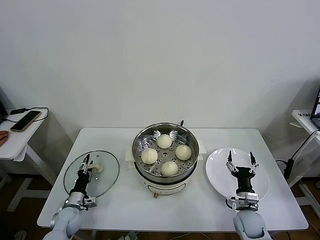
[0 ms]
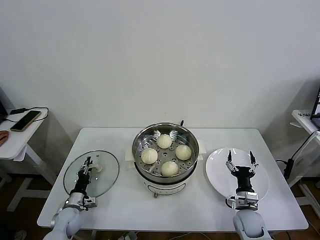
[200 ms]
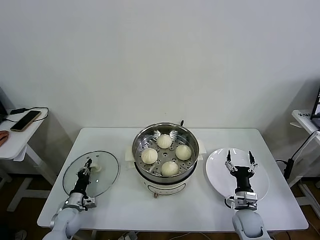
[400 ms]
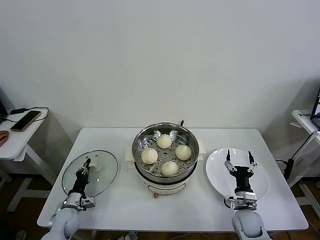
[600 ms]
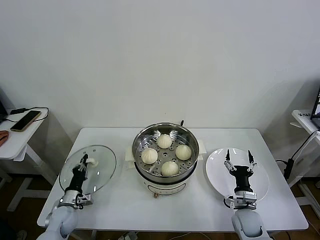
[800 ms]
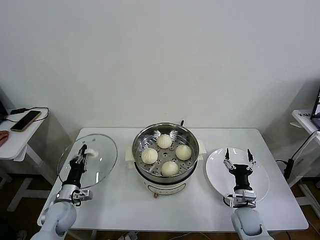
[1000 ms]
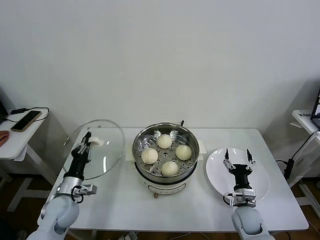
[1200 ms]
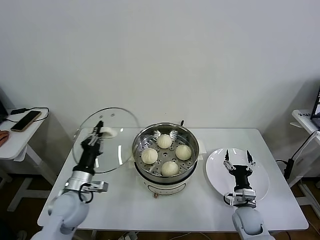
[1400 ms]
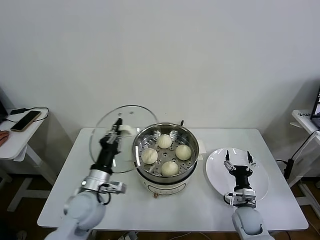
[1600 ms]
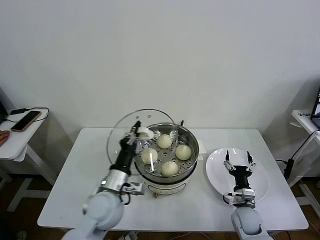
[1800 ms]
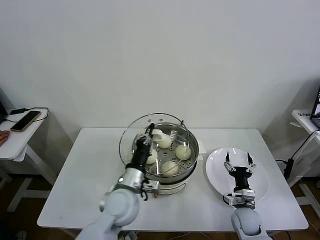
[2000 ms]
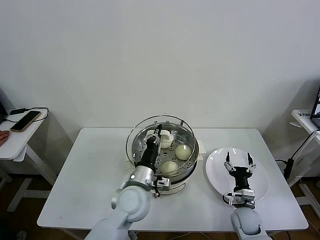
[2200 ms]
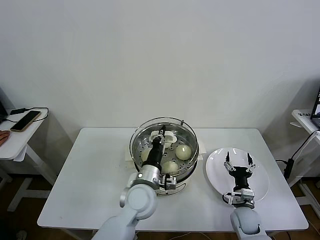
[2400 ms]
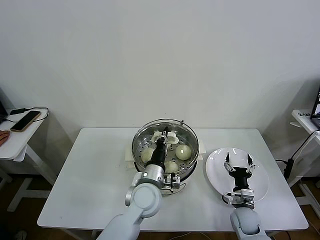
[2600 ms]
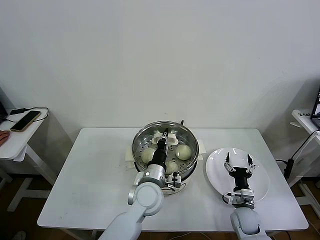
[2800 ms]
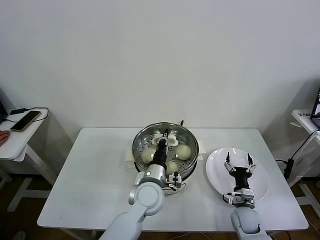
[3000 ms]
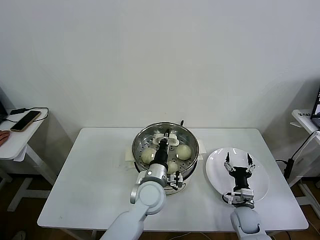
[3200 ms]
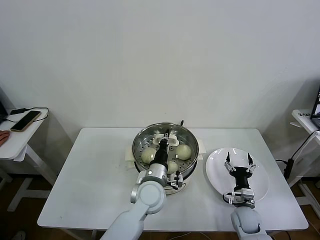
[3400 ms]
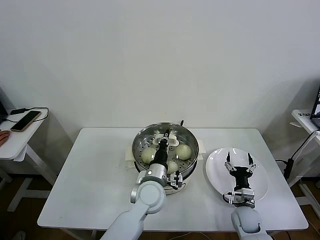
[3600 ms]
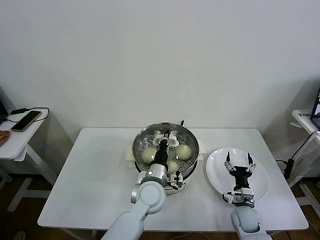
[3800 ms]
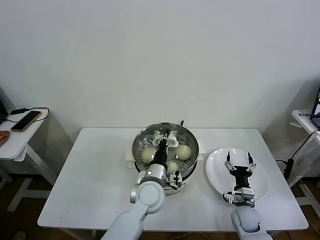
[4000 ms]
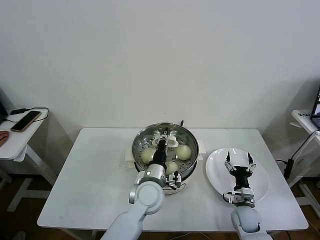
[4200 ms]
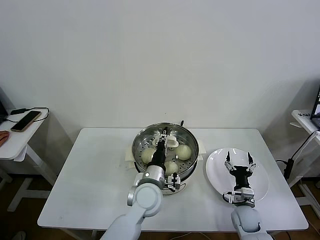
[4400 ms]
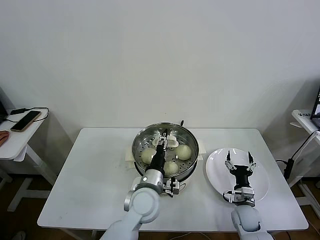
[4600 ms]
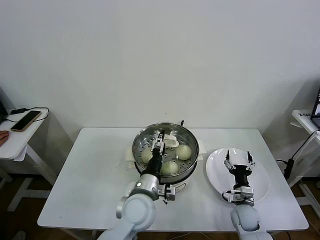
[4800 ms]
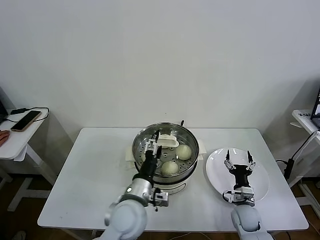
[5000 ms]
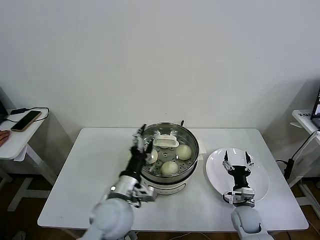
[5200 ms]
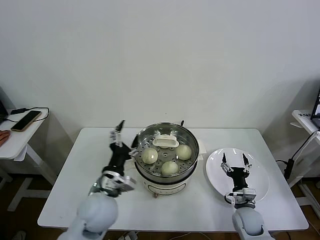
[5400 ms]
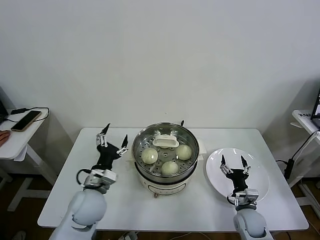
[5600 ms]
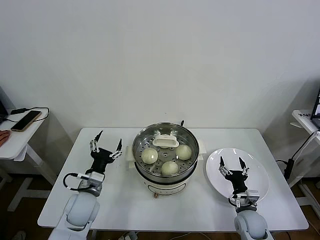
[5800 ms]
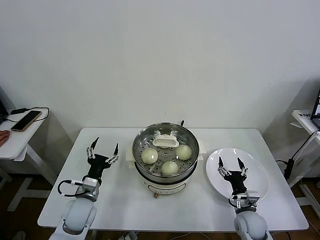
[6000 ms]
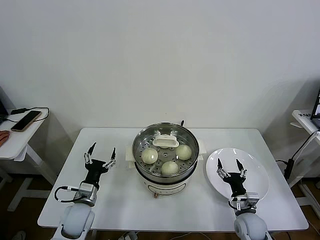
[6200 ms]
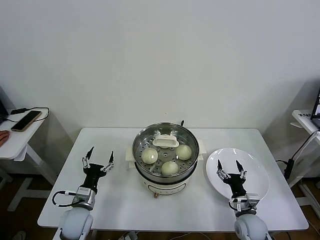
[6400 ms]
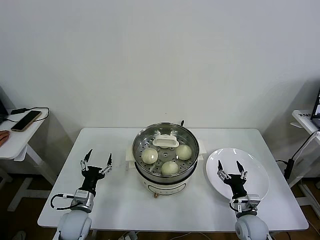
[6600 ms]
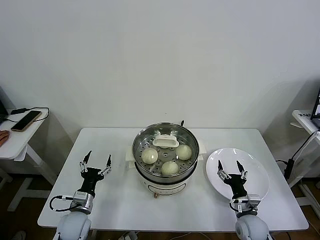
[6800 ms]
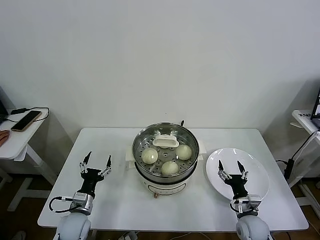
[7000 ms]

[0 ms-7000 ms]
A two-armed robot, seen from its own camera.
Task of the whole recording: take steamed baozi put them in steamer then cover it.
Step, 800 ms to 4200 ms: Place the pot lid on the steamer with left gripper.
0 ms to 1400 ms: The left gripper is displaced upward and to the right by approximately 20 cm, and closes.
1400 ms to 2800 ms: The left gripper goes some 25 cm to the right.
2800 ms to 4200 ms: The grippers move only a little.
4200 ms to 5600 ms: The left gripper heads to the left, covering about 15 cm, and opens its fingers.
5600 ms to 7000 ms: The left gripper heads downward and to the left, covering approximately 15 cm.

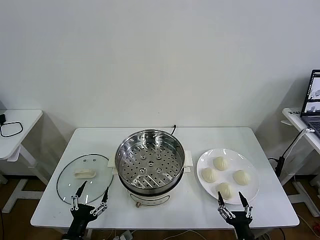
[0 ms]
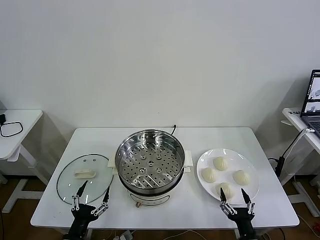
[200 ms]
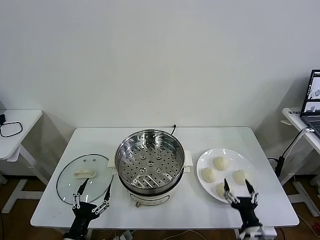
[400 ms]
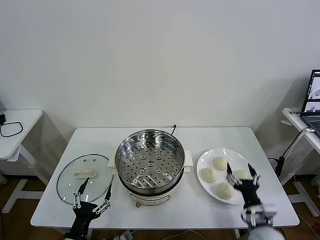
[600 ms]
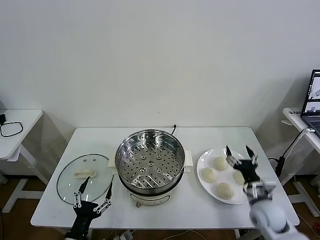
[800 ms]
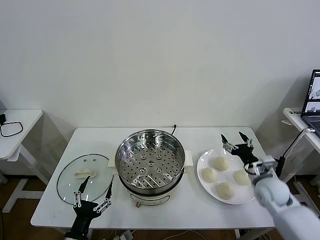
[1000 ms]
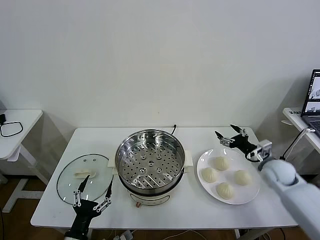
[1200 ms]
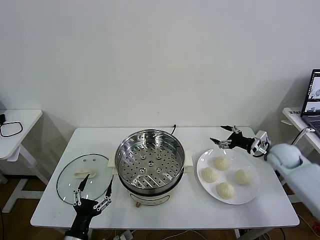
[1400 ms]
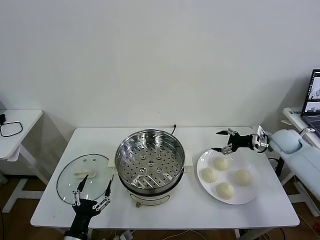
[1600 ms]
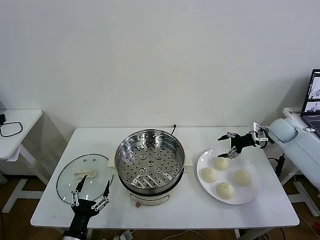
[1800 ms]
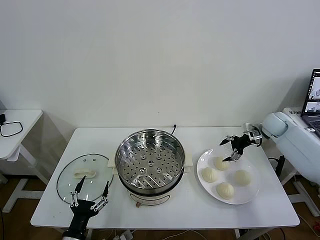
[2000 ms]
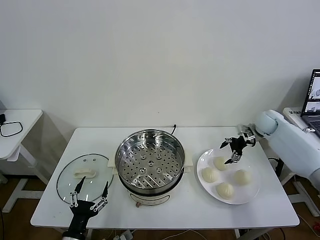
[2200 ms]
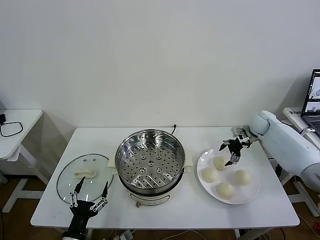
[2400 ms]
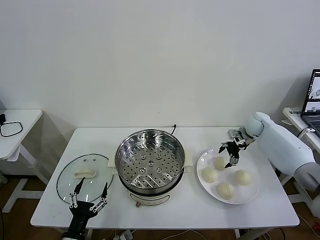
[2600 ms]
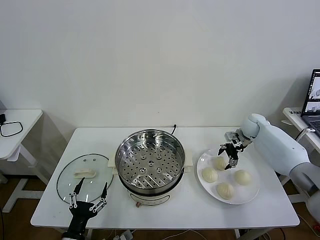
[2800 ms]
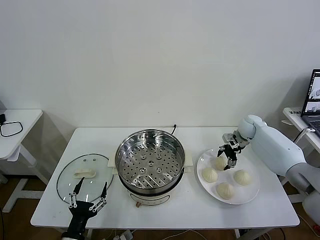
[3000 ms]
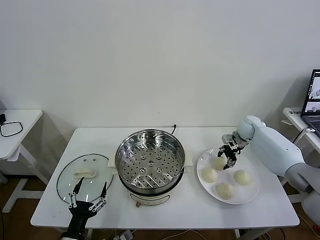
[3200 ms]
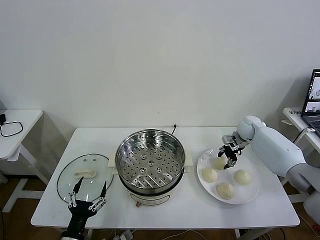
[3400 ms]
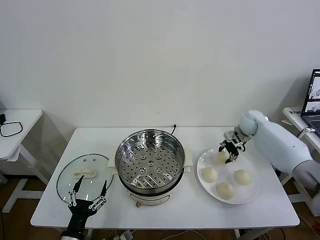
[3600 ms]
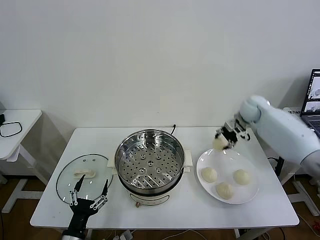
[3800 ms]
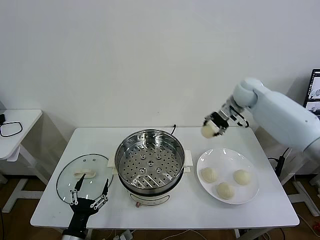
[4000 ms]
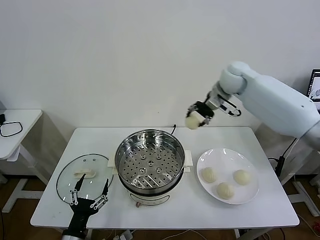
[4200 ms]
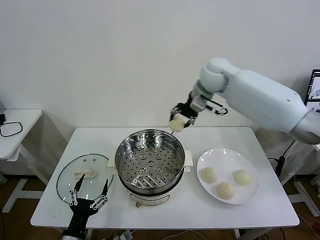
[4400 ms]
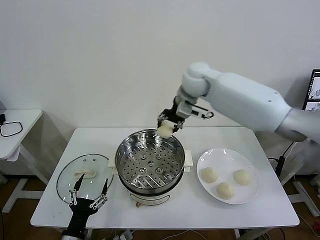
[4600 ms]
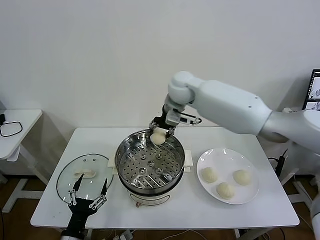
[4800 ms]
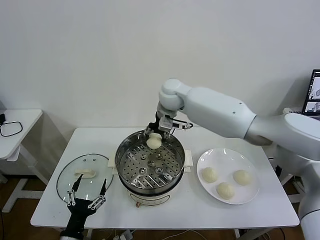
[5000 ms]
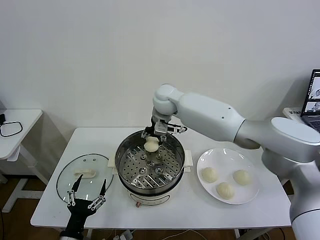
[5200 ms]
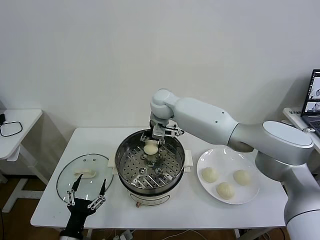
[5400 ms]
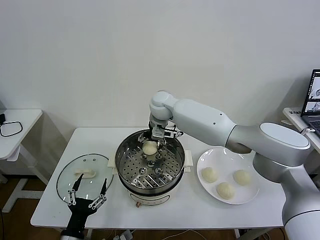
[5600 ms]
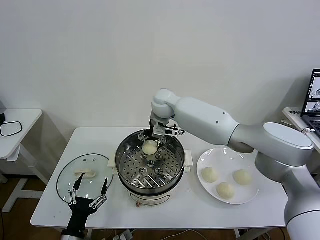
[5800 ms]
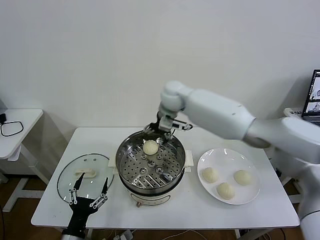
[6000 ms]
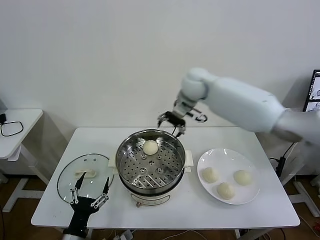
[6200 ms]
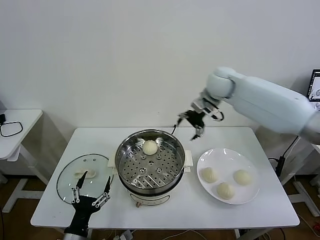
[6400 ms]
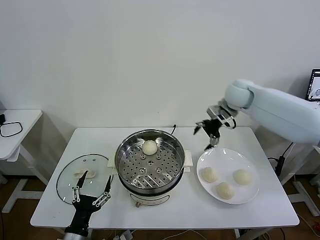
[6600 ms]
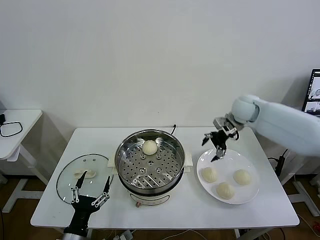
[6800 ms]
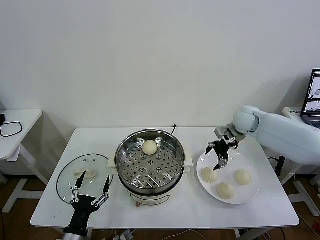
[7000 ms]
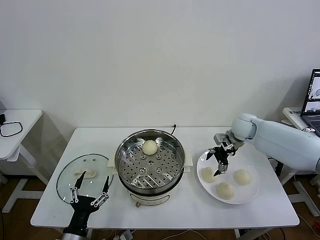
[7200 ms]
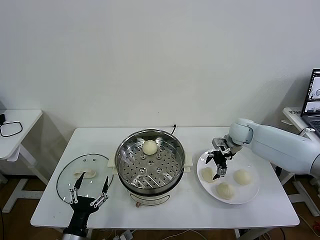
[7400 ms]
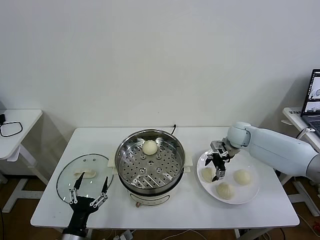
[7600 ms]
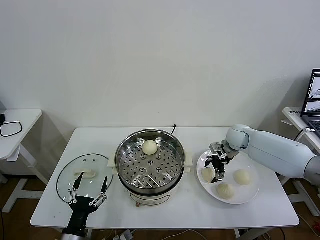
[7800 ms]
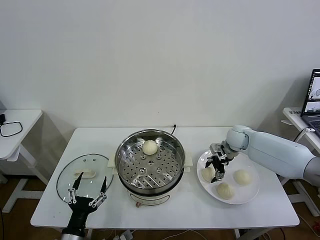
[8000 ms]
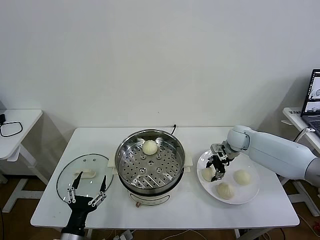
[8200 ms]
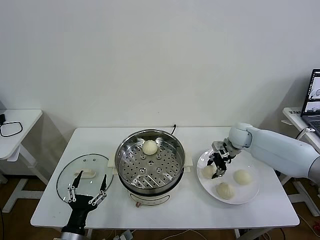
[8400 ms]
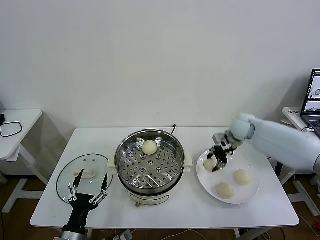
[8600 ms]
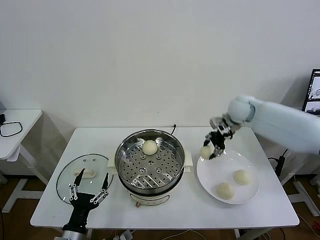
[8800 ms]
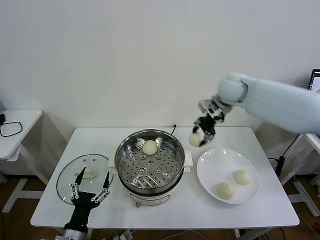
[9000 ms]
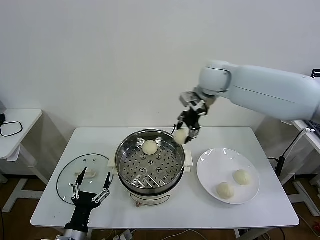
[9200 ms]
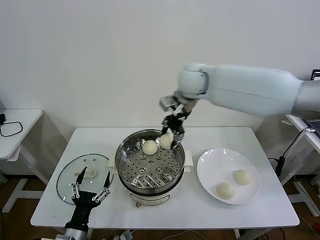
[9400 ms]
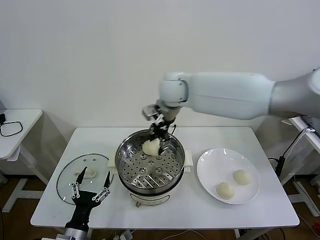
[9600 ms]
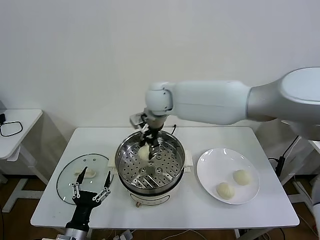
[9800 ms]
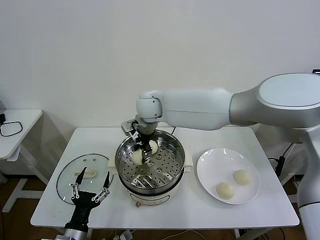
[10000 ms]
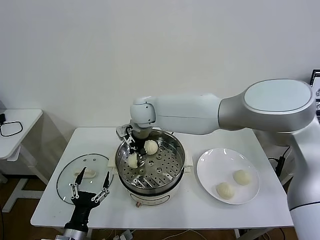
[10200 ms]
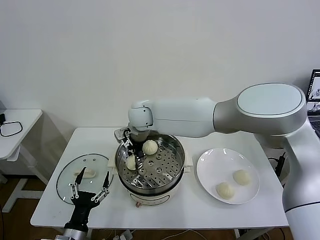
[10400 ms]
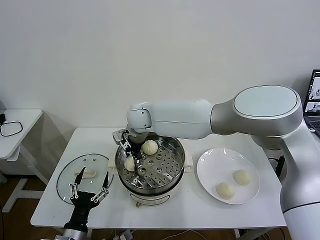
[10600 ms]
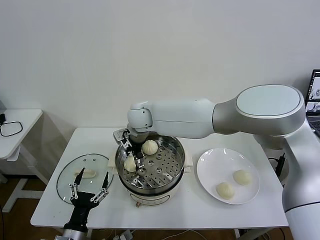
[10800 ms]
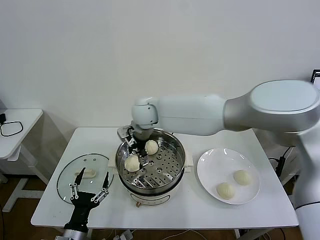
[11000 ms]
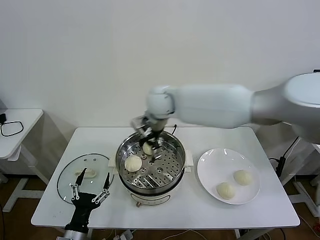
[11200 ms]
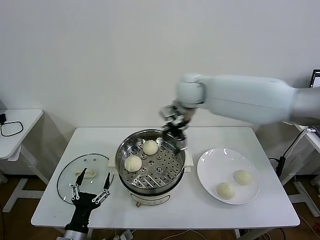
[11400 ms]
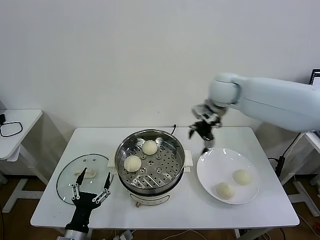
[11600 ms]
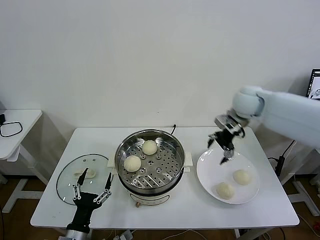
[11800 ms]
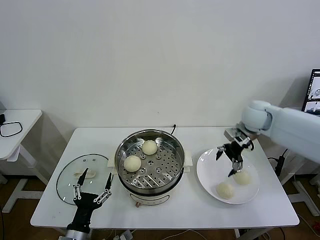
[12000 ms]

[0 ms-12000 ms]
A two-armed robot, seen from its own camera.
Task of the whole recording: take steamed baozi put them in steamer then cover it.
Step, 0 ms to 3200 ms: Grasp the baozi in the plate with right gripper.
Step, 3400 ms to 5800 ms: Place the baozi on the steamer with right gripper.
Step, 6000 ms to 8200 ms: Grasp the baozi in the plate with right gripper.
Step, 8400 ms to 10800 ms: Place the baozi on the steamer with right gripper.
1600 ms to 3000 ms: The right gripper travels forward and to the left by about 10 cm, and closes.
3000 ms to 4400 ms: The right gripper travels upward and to the left by approximately 35 cm, and closes its fingers.
4400 ms to 6000 ms: The right gripper is displaced to the left by about 5 cm, and opens.
6000 ms to 7600 ms: The right gripper is displaced to the right and downward by approximately 30 cm.
7600 ms to 9000 ms: The right gripper shifts roughly 25 cm upward and to the left, and closes up.
9000 ms to 10400 ms: The right gripper heads to the left, covering about 25 cm.
10400 ms to 12000 ms: The right gripper travels to the right by about 40 cm, and opens up.

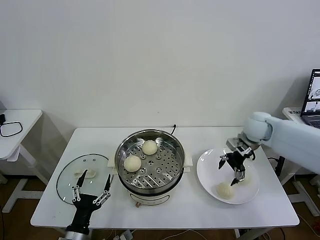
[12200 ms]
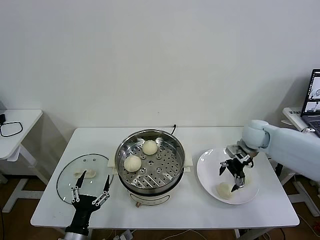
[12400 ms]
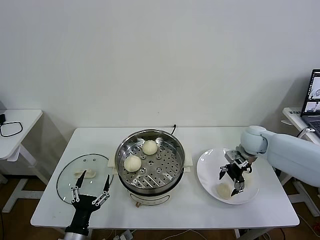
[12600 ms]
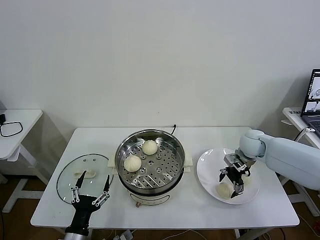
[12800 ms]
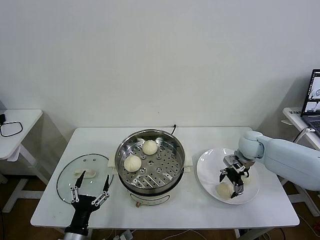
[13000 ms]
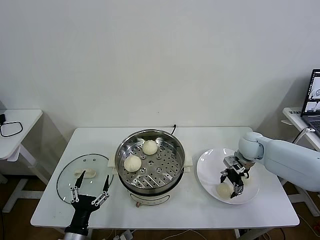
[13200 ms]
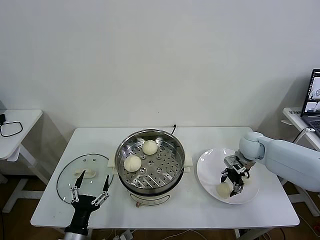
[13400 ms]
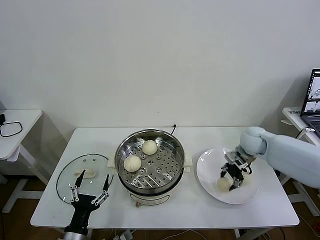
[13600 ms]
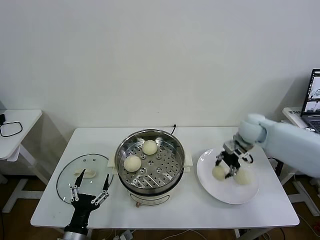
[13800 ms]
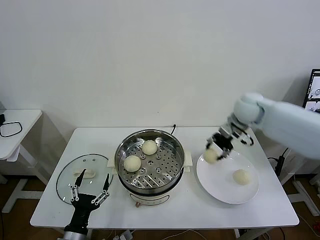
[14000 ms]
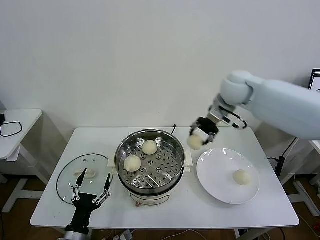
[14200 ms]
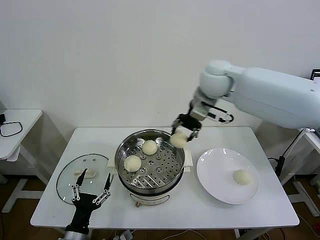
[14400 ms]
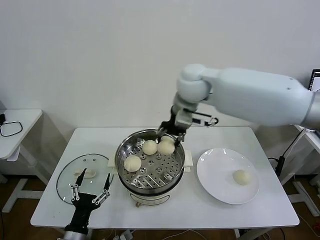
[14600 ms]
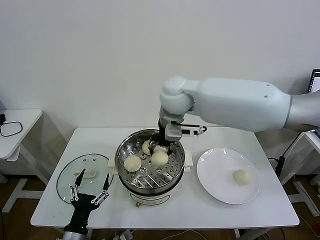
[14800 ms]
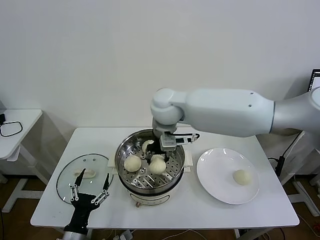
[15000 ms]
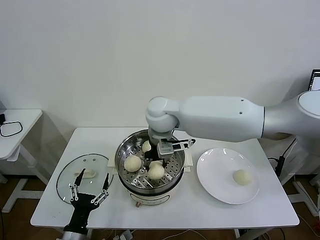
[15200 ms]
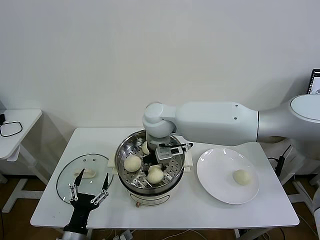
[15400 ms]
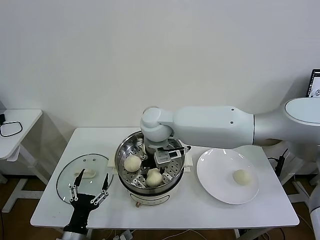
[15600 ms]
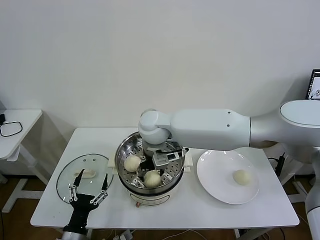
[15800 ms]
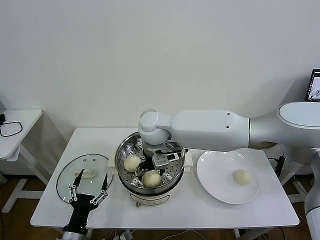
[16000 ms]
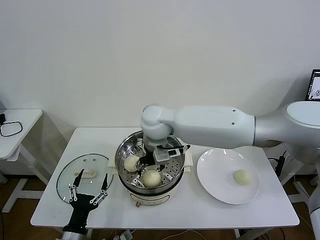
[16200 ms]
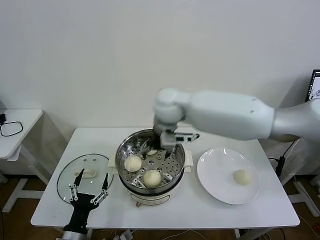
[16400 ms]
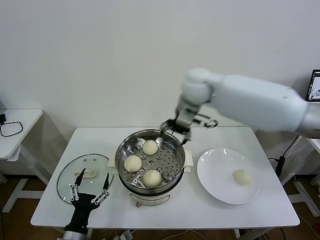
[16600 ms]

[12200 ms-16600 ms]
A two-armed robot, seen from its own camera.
Task of the whole recording: take steamed baozi put them in steamer then cover it.
Step, 12200 ms to 13400 ms: Grasp the baozi in the plate with right gripper.
Step, 13600 ms to 16000 ms: Place the baozi on the steamer with right gripper.
12200 ms to 13600 ms: The right gripper closes its fingers.
13600 ms to 15200 ms: The right gripper travels to the left and upward by about 35 cm.
15200 ms to 16600 ms: The right gripper heads to the right, upward and forward, covering roughly 15 cm, and opens up.
